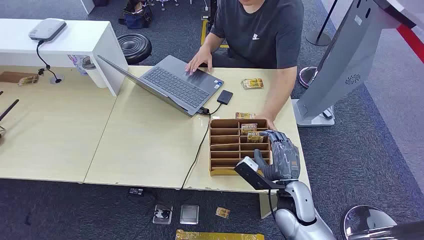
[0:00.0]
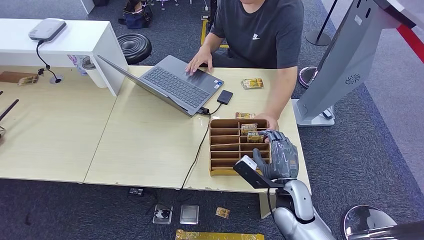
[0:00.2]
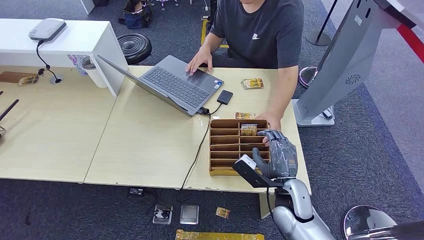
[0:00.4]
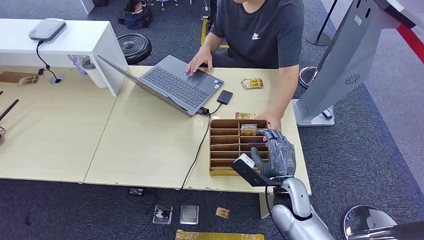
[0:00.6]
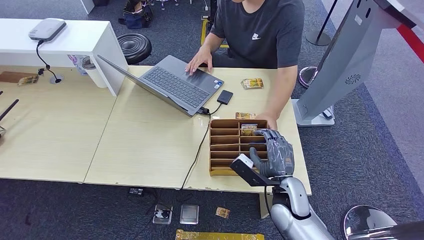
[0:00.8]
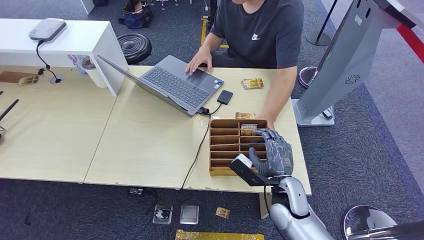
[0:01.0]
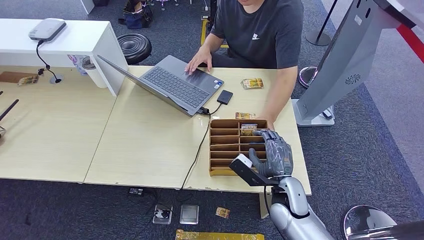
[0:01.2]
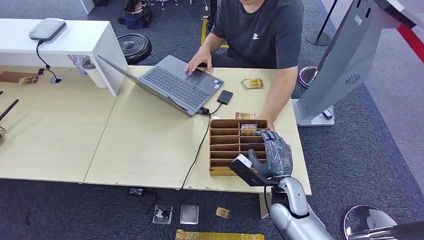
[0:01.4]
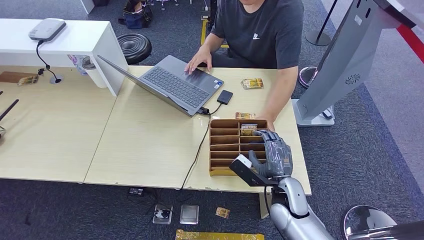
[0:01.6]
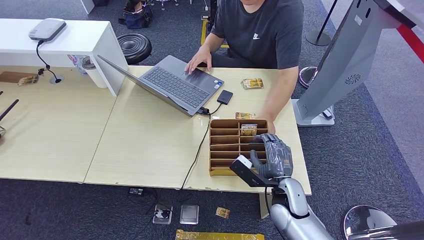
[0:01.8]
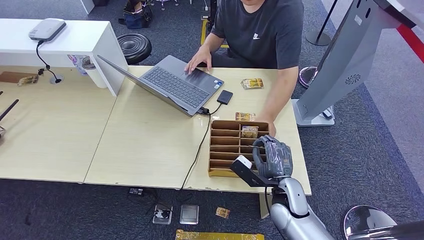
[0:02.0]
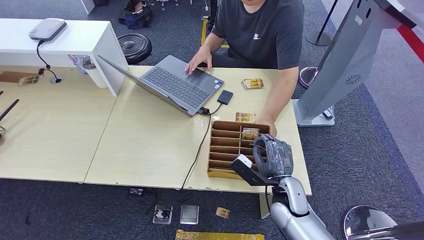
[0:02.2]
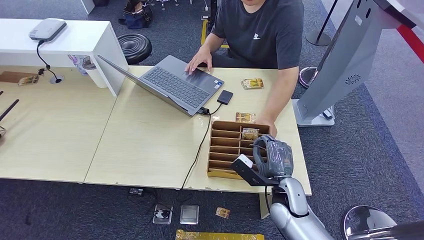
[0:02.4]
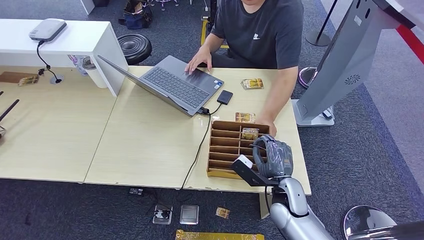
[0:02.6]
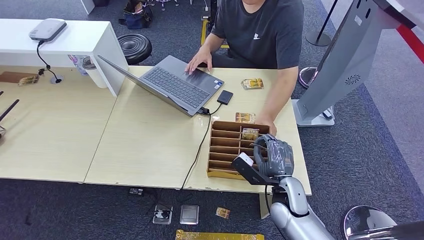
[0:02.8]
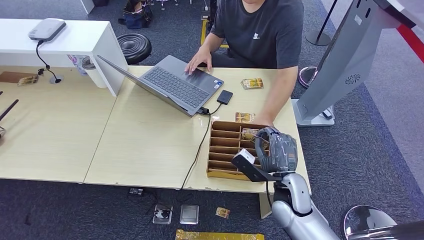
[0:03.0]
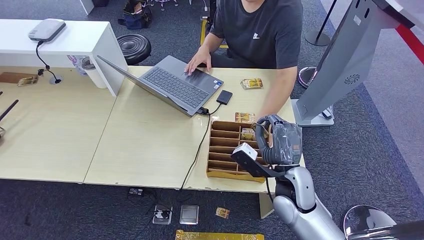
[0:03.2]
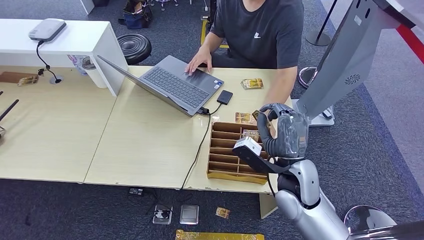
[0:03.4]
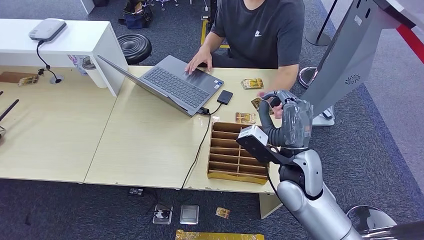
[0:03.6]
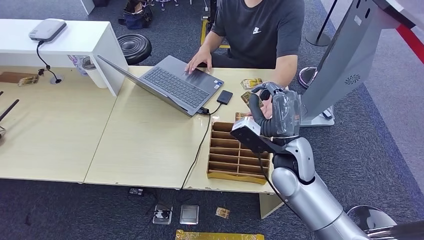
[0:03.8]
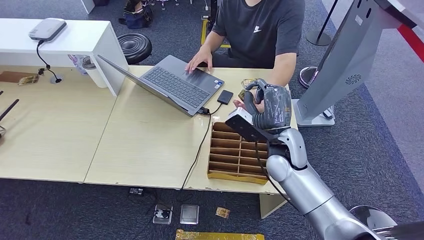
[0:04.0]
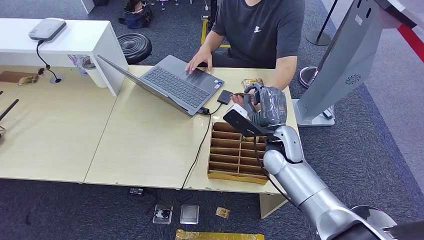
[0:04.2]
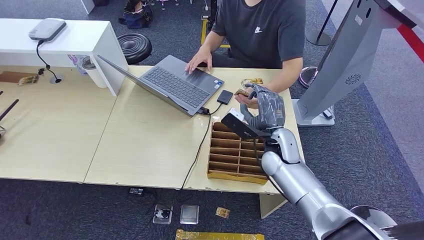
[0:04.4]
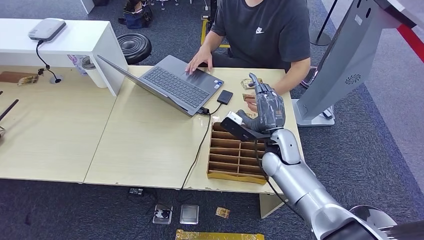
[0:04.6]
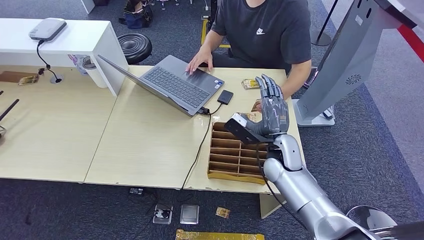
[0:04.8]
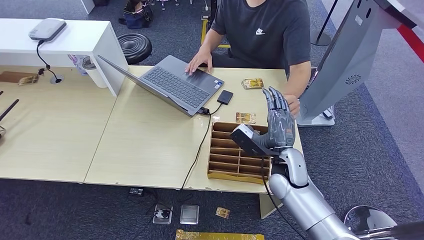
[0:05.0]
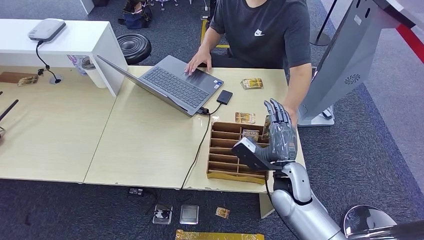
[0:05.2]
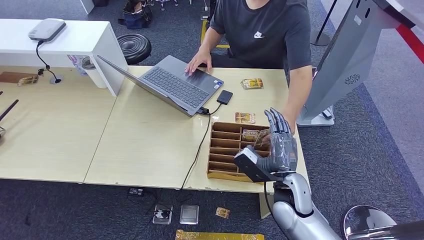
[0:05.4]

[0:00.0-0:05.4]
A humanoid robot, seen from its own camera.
Step, 0:00.0 to 0:03.0: Pick up the room card from the card holder.
Step, 0:03.2 to 0:05.4: Hand the room card to the target.
0:01.4 to 0:02.8: Both hands stay about where they are.
0:02.8 to 0:04.0: The right hand shifts some 15 cm upward and forward.
0:04.0 to 0:05.4: The right hand heads backward and downward, covering some 10 cm.
